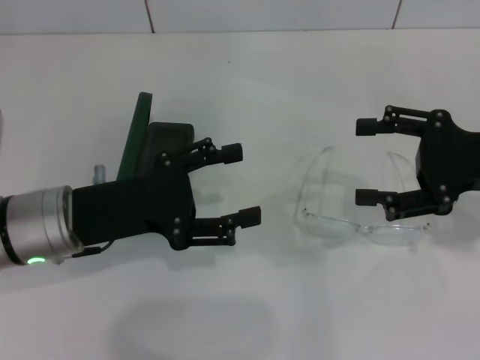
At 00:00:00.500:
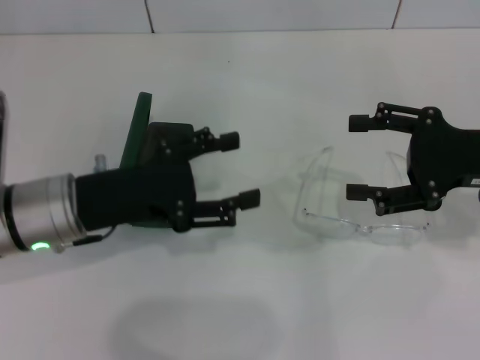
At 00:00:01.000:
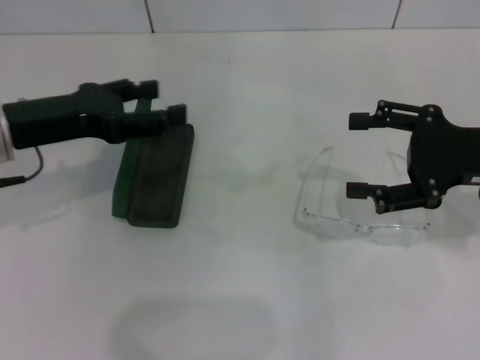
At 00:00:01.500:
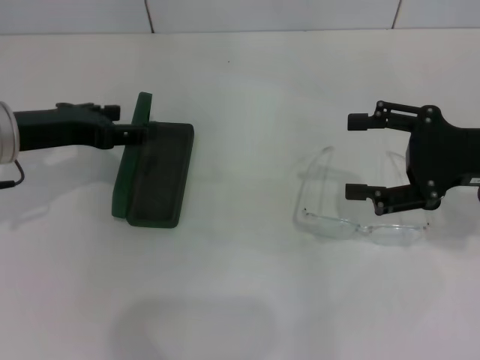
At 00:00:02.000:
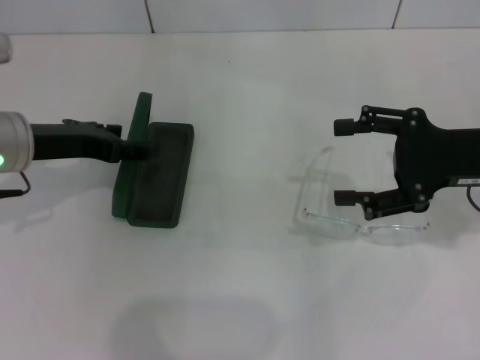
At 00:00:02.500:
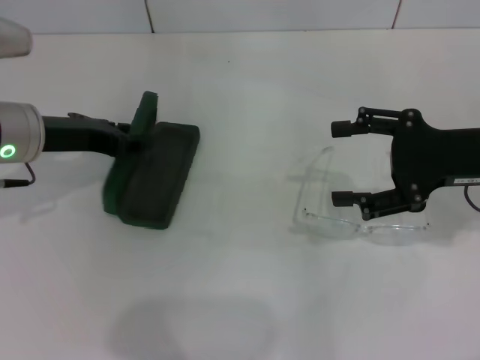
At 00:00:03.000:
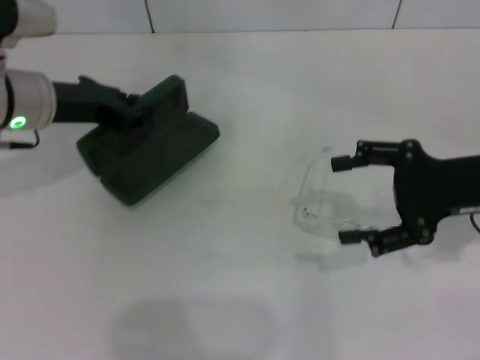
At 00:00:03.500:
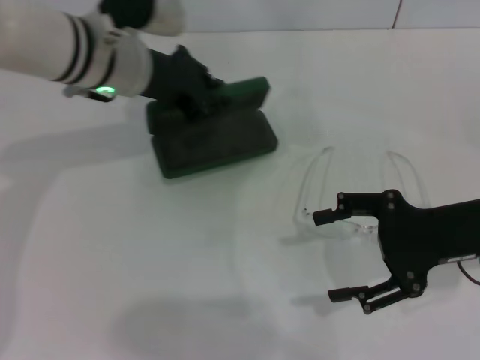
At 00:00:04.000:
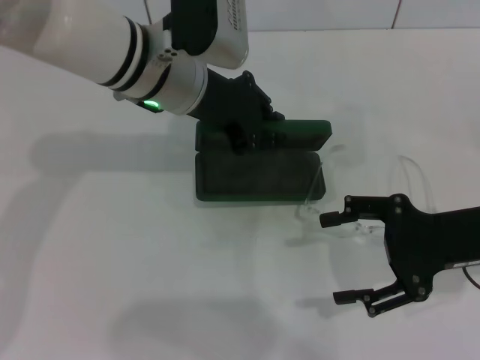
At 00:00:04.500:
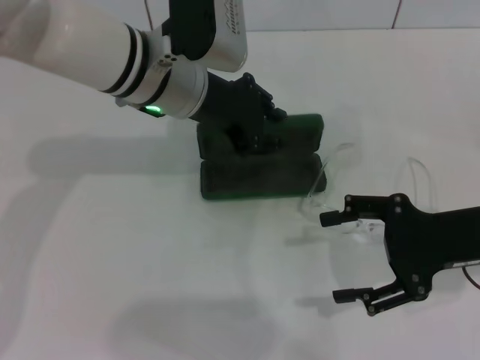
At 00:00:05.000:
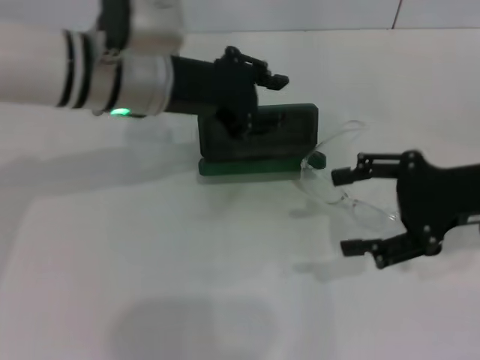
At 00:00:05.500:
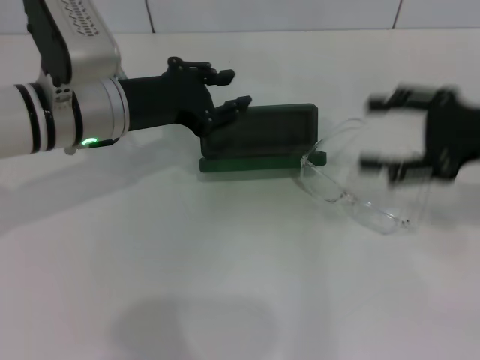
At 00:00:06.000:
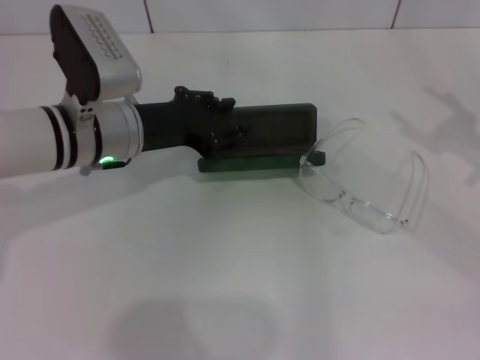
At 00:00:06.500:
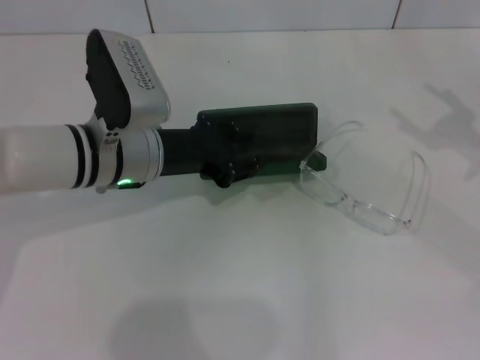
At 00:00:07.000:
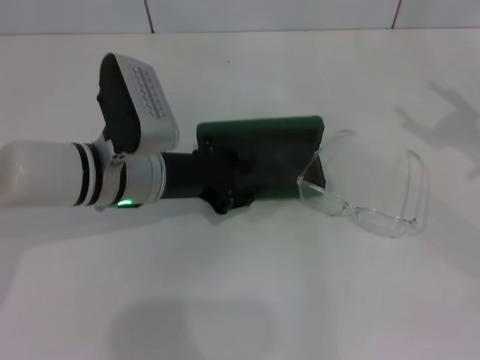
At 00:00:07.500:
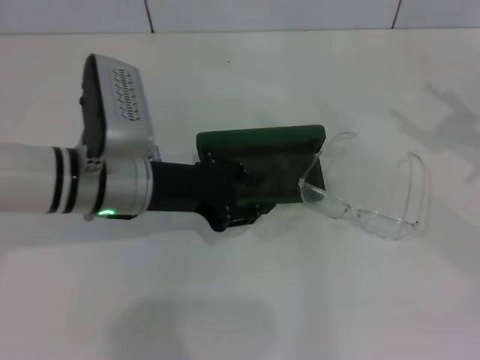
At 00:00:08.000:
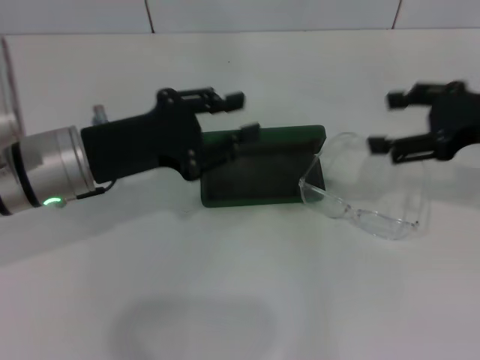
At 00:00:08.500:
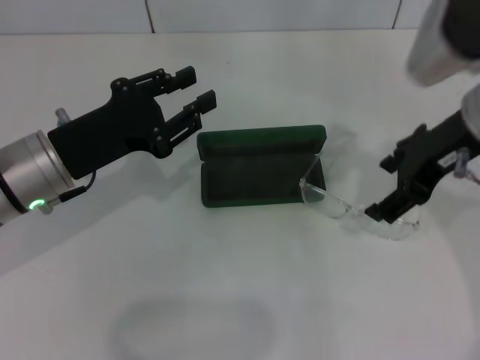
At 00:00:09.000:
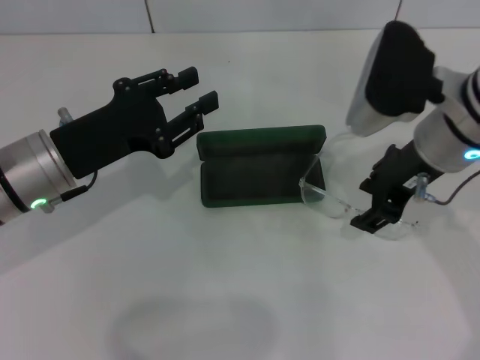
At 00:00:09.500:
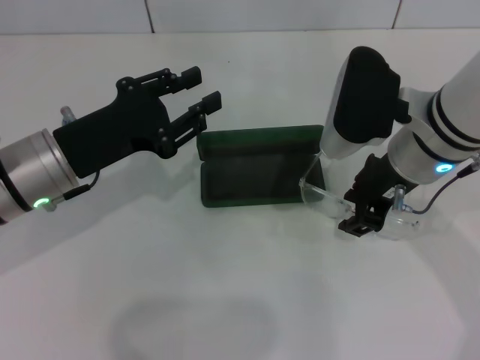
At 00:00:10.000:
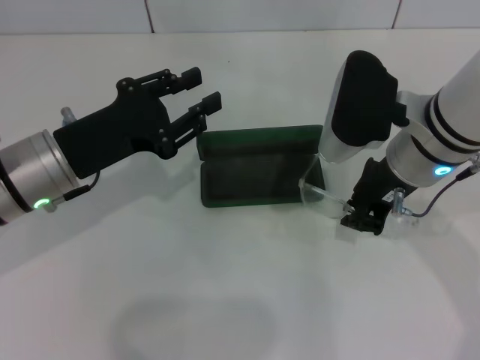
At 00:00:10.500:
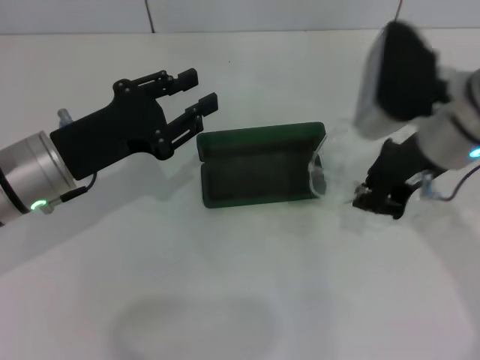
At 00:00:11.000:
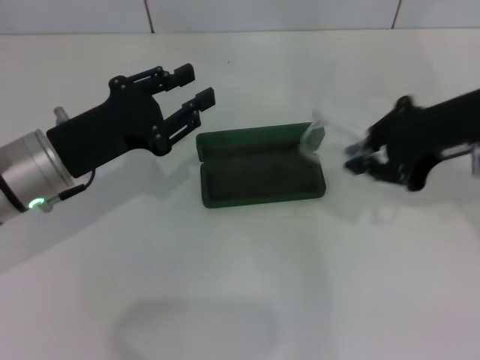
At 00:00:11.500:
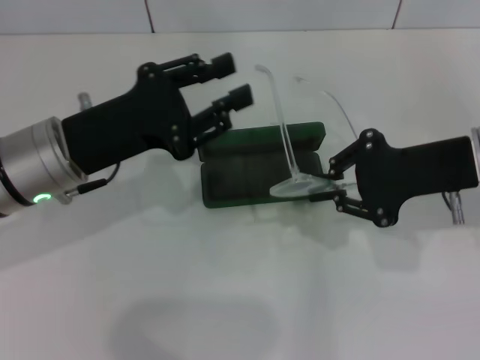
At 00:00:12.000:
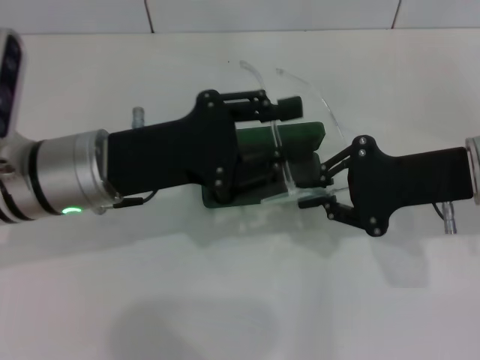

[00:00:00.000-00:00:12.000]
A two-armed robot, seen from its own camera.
Step, 00:00:00.000 to 00:00:02.000: Grab the glasses case with your left hand.
Step, 00:00:02.500 to 00:00:07.500: Place the glasses case in the center of the table with your left hand.
Step, 00:00:08.000 to 00:00:10.000: Grab the eyeglass frame with your right hand.
00:00:00.000 to 00:00:02.000: The left gripper shifts approximately 5 cm forward.
00:00:02.000 to 00:00:04.000: The left gripper travels to the right by roughly 15 cm, and closes up, while the right gripper shifts by roughly 5 cm.
00:00:04.000 to 00:00:06.000: The right gripper heads to the right, covering approximately 10 cm. The left gripper heads to the left and downward, covering roughly 10 cm.
00:00:06.000 to 00:00:08.000: The right gripper heads to the left, covering approximately 10 cm; the left gripper heads backward, covering some 5 cm.
00:00:08.000 to 00:00:10.000: The right gripper travels to the left by approximately 15 cm, and closes its fingers.
00:00:10.000 to 00:00:12.000: The left gripper ends up approximately 5 cm from where it was. Meanwhile the right gripper moves to the right, roughly 10 cm.

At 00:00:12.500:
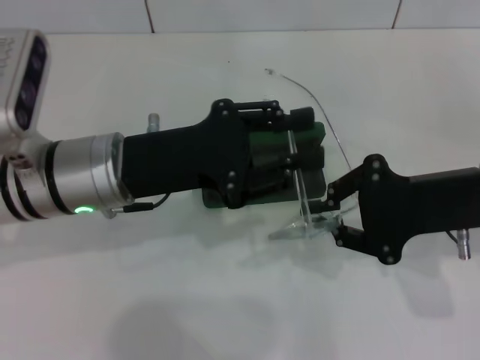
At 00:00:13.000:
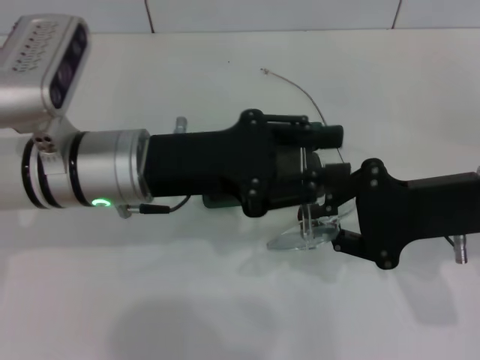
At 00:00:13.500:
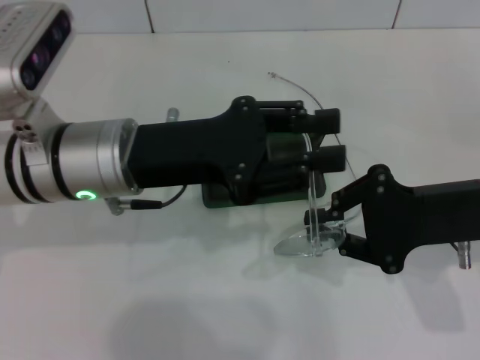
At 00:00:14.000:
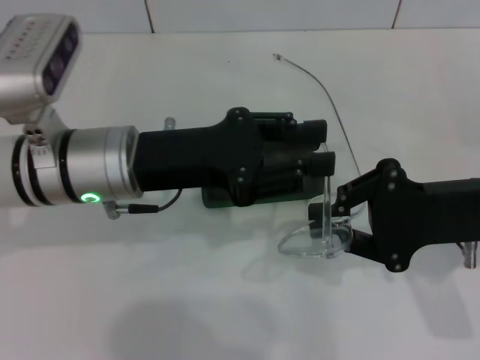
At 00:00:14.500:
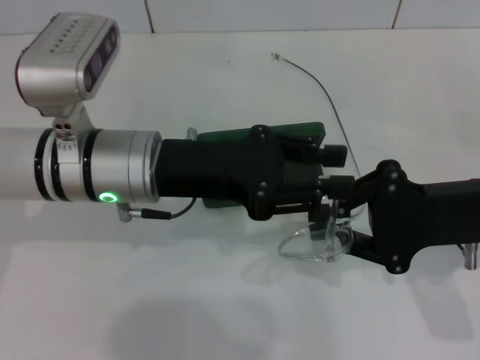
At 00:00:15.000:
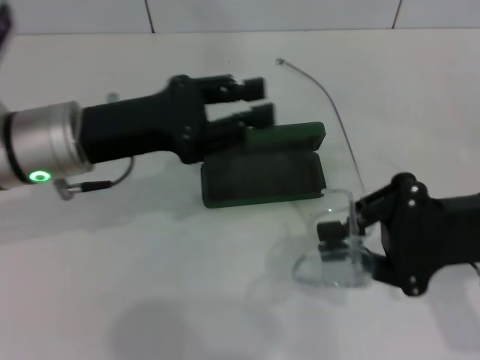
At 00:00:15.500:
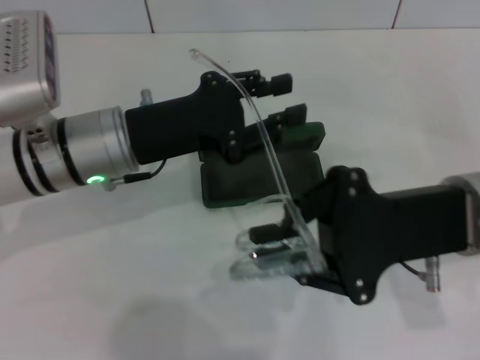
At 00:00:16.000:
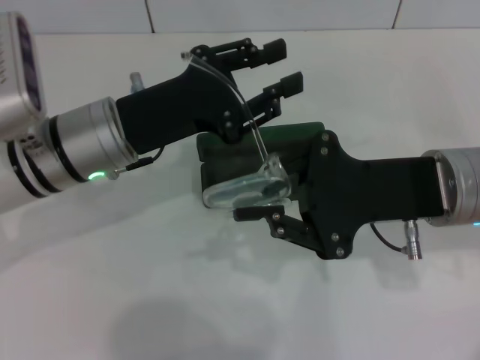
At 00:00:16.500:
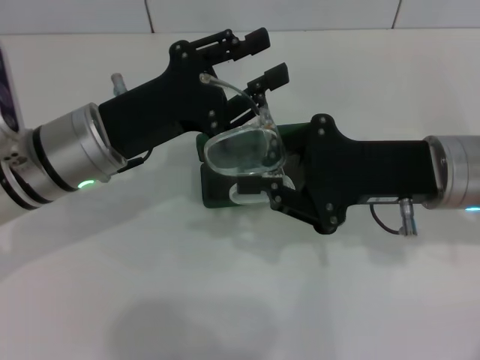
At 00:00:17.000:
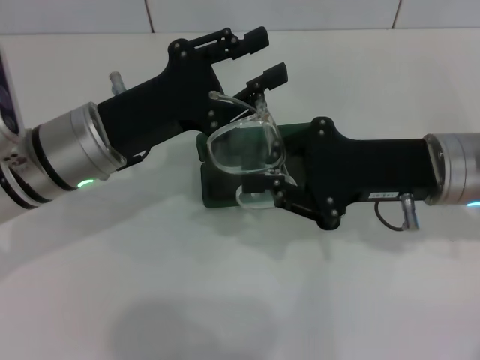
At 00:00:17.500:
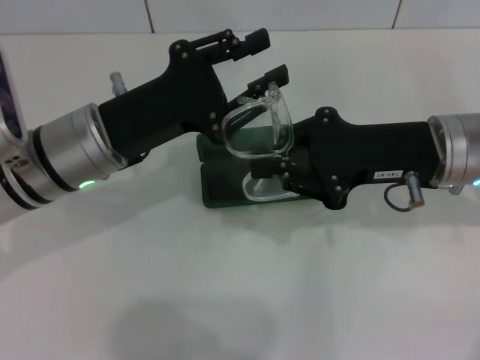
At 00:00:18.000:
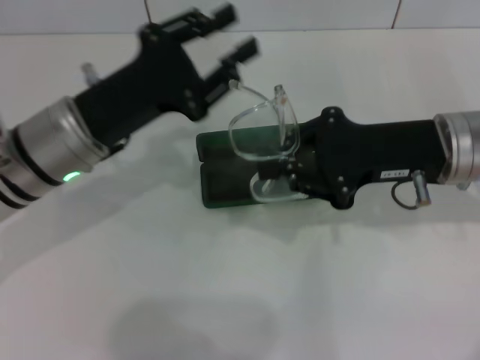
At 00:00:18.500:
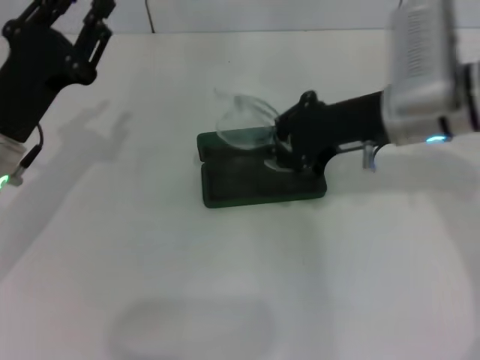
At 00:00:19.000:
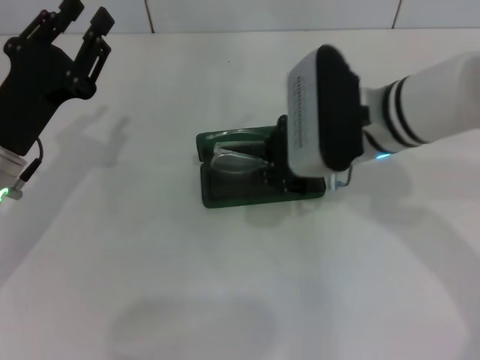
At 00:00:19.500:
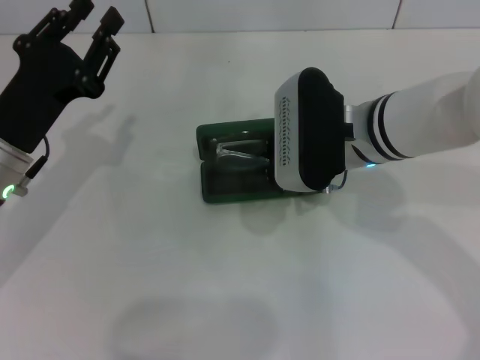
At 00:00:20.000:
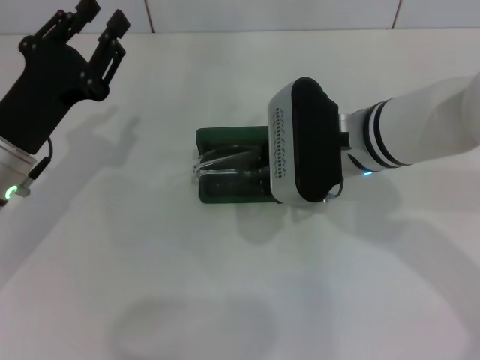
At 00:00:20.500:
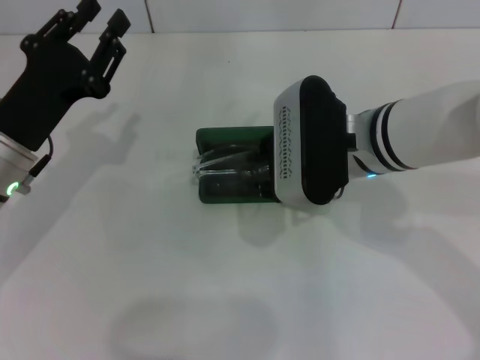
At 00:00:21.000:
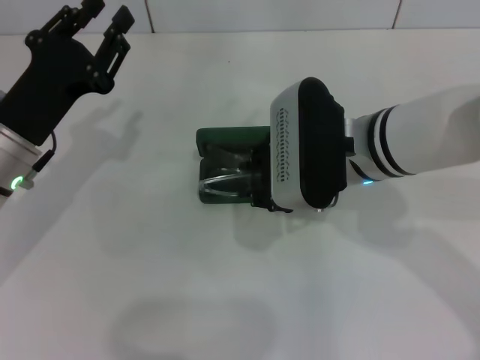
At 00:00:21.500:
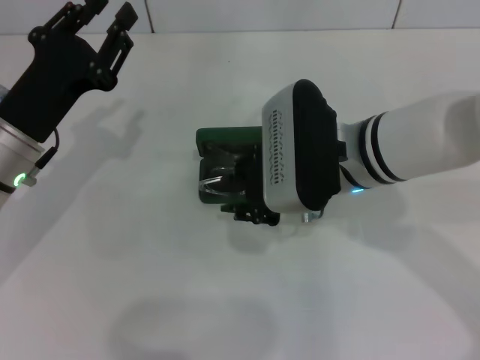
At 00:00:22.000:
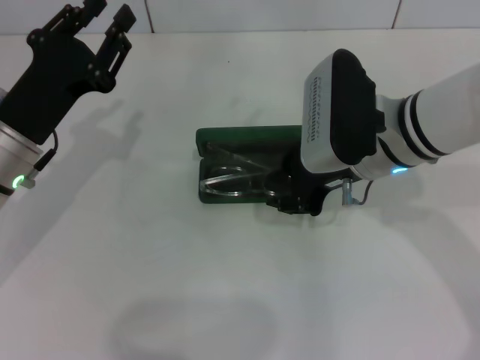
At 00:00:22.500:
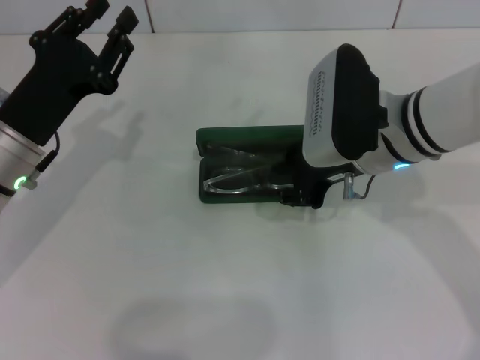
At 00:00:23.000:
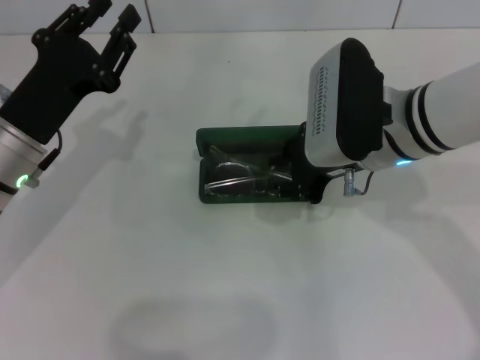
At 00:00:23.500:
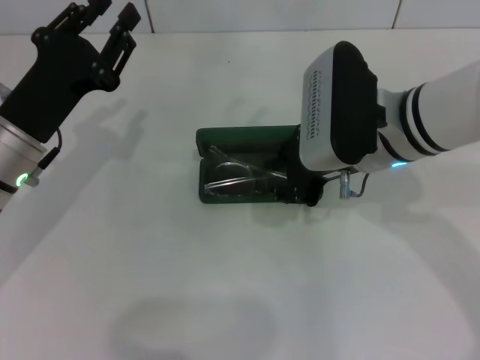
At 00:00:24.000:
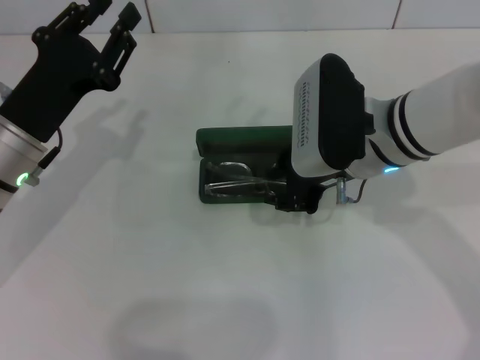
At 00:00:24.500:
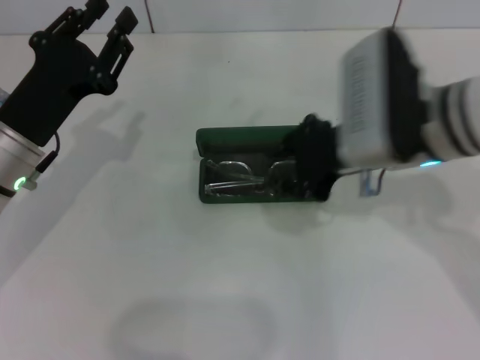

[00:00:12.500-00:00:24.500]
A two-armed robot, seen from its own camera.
Step, 00:00:12.500 to 00:00:16.500: Fold the frame with your left hand.
Step, 00:00:17.000 to 00:00:24.000: Put the glasses into the case with your right hand.
00:00:14.500 to 00:00:16.500: The right gripper is displaced to the left by approximately 5 cm.
00:00:16.500 to 00:00:18.500: The left gripper heads to the left, covering roughly 10 cm, while the right gripper shifts about 5 cm forward.
00:00:18.500 to 00:00:20.500: The right gripper travels to the left by some 5 cm.
00:00:20.500 to 00:00:24.500: There are only small adjustments of the grippers.

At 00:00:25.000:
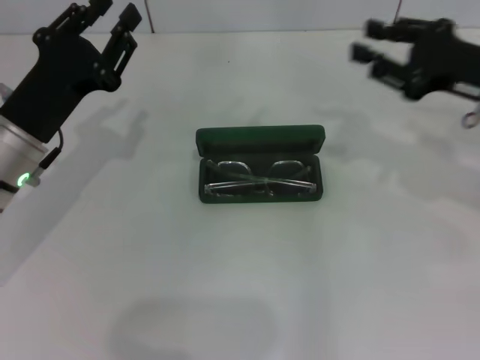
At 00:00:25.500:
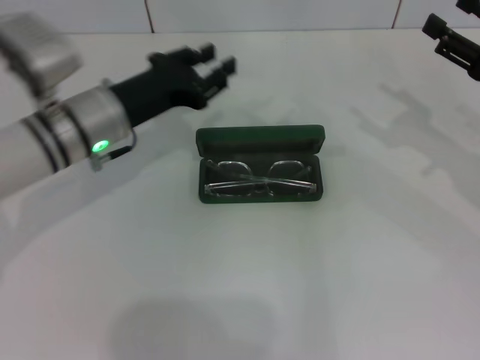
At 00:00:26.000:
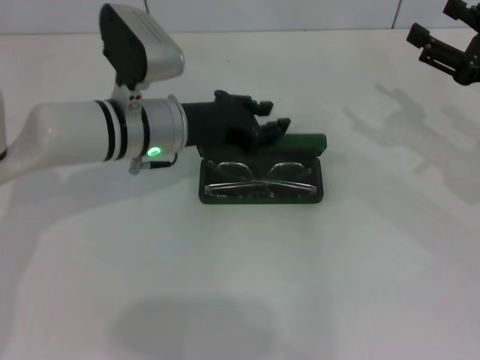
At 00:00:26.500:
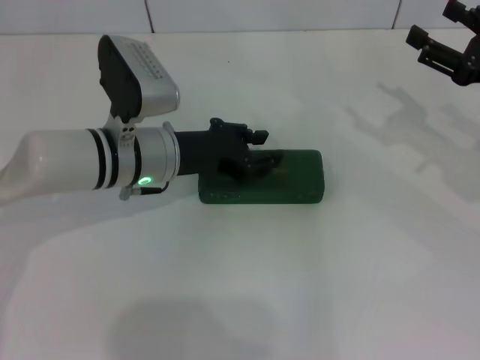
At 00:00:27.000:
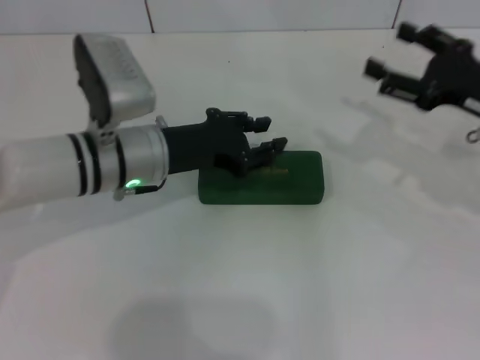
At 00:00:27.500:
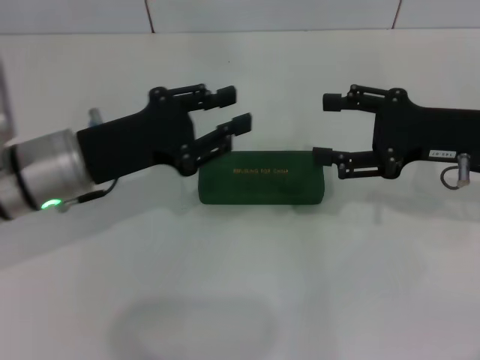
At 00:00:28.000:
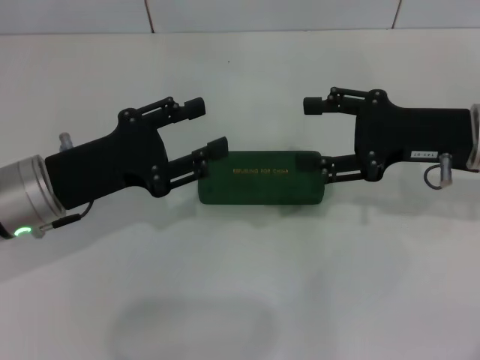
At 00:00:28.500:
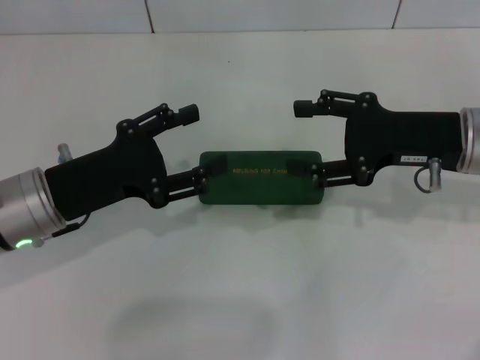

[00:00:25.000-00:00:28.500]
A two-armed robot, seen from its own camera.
Step, 00:00:25.000 to 00:00:26.500: Close the glasses case with your left hand.
00:00:25.000 to 00:00:27.000: The left gripper moves to the right, approximately 10 cm; the right gripper opens.
00:00:27.000 to 00:00:28.500: The right gripper heads to the left, covering about 5 cm, while the left gripper goes about 10 cm to the left and backward, and opens.
